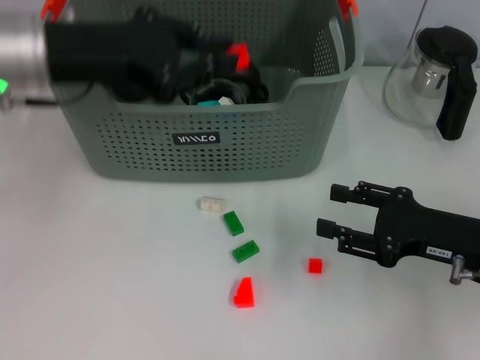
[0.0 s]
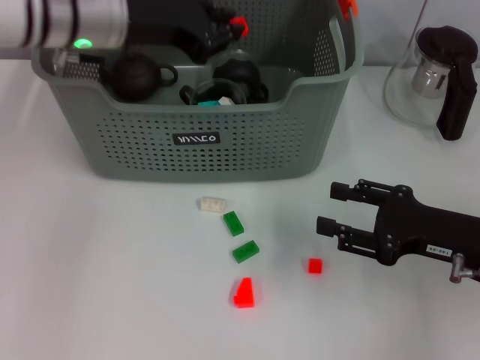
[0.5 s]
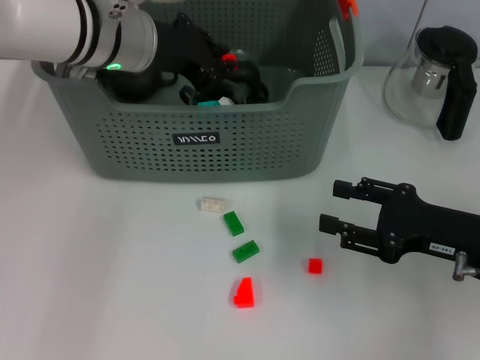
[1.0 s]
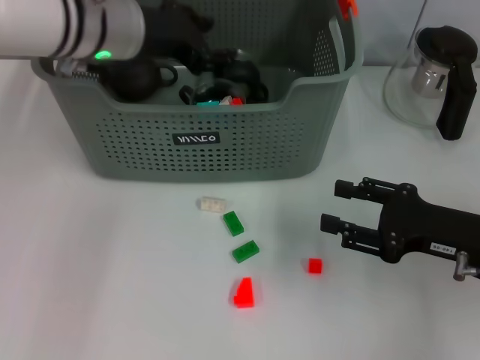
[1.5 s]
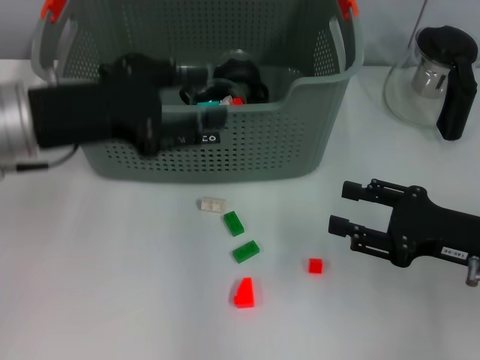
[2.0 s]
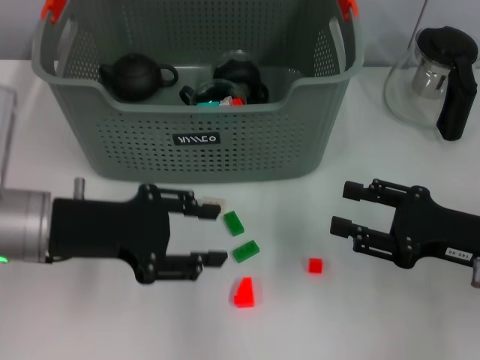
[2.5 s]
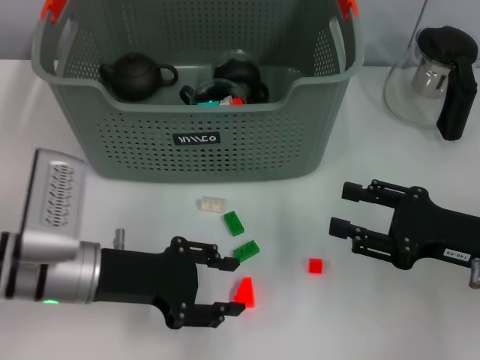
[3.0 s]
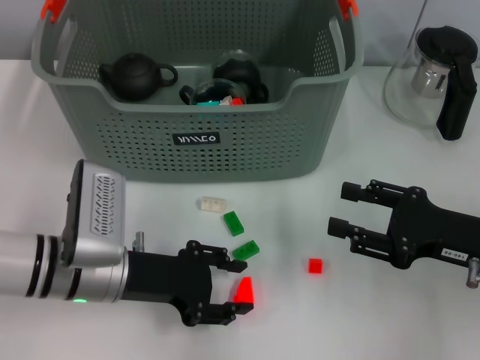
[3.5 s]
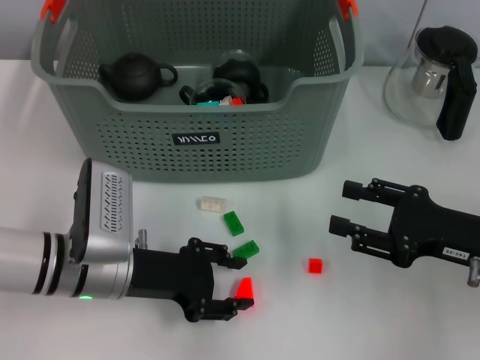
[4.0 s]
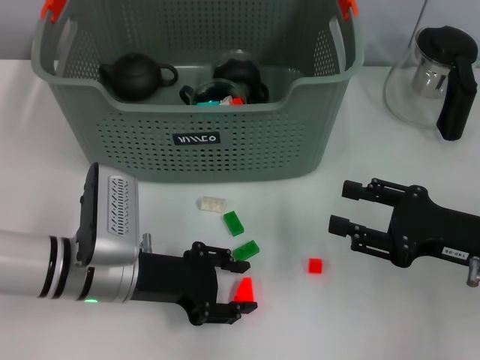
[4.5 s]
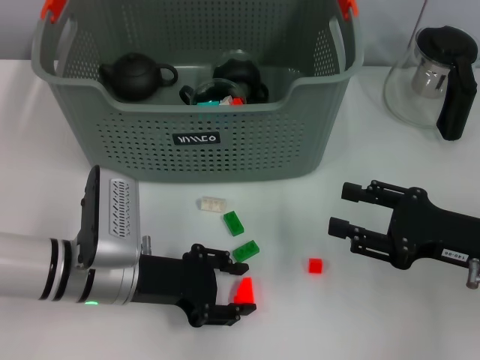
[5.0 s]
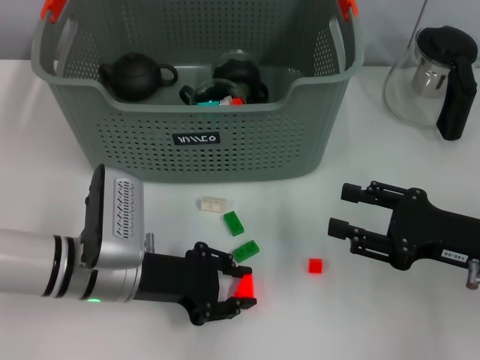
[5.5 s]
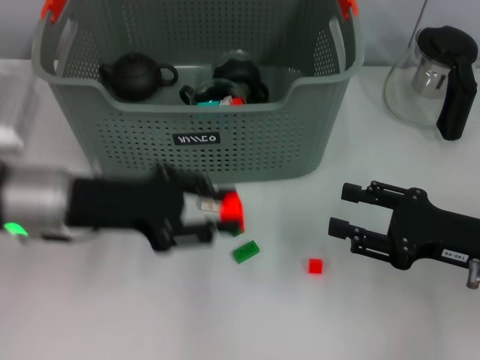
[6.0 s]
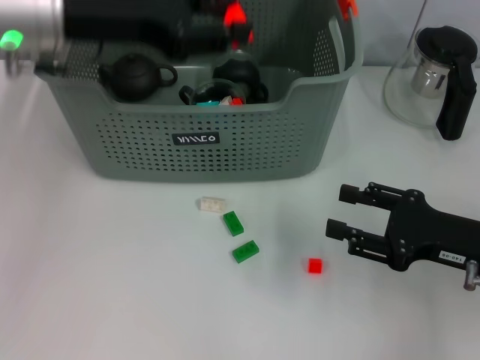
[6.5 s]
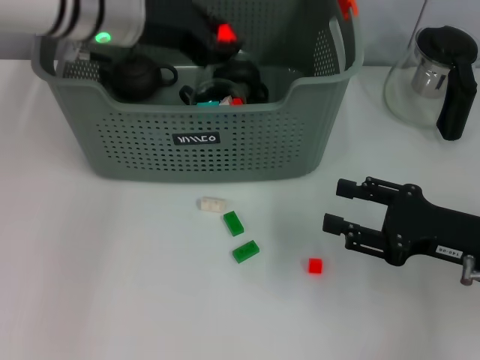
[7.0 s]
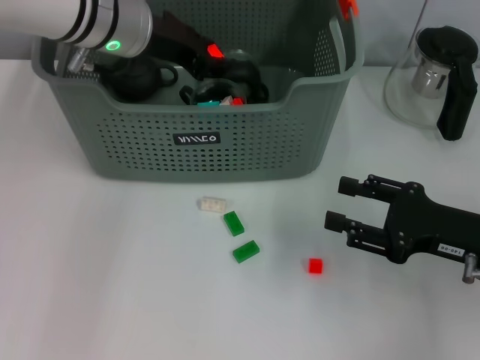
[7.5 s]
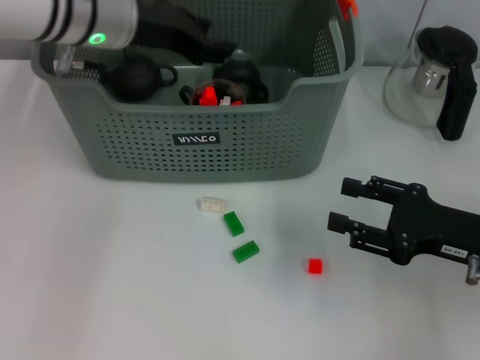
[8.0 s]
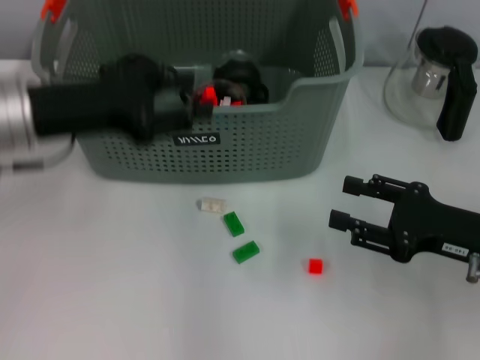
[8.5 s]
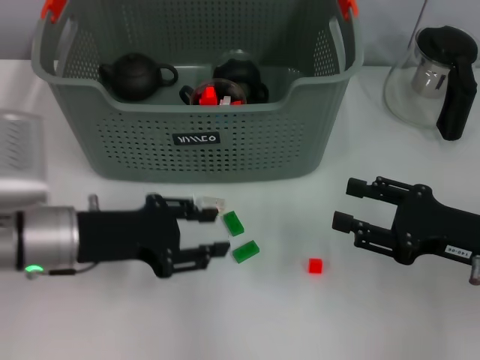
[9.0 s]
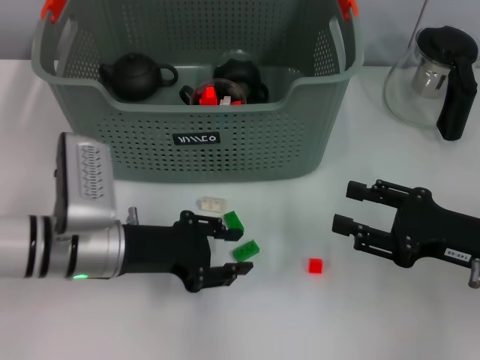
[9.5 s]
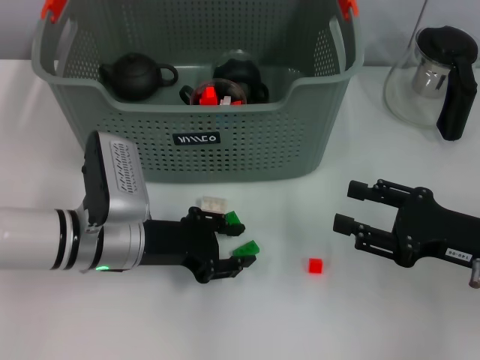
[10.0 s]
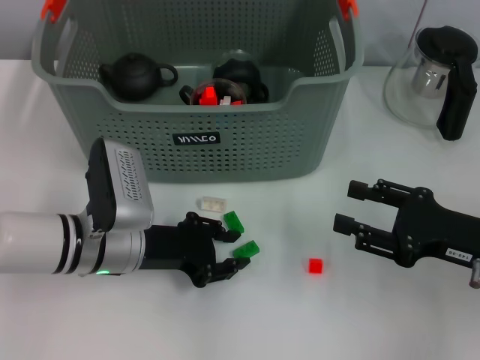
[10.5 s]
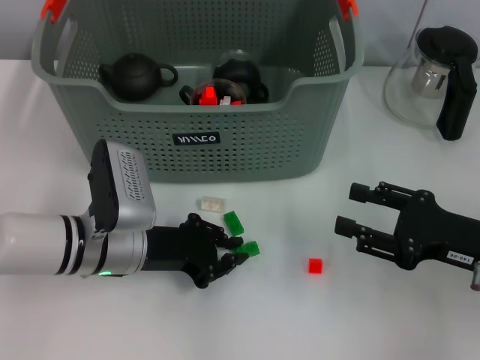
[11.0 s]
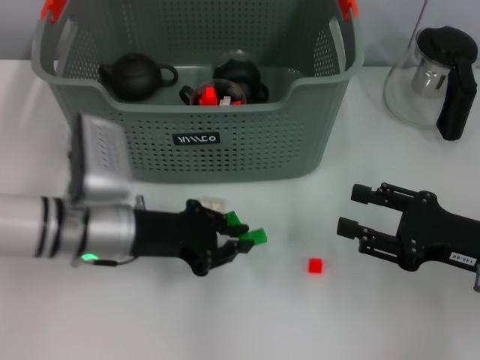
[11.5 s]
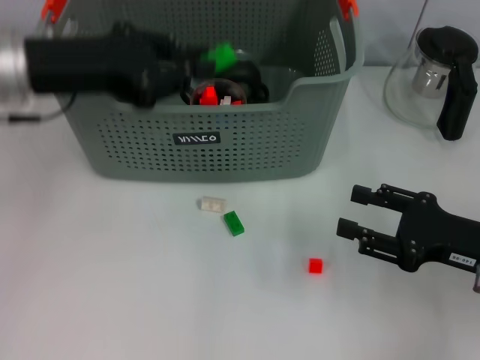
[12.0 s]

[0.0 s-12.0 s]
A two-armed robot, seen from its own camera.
Task of the whole recording: pick up the teacup on the table and place it into the storage bin, pick up the block on the table and place it into the storage bin.
Step, 2.0 to 5.0 s: Grasp the orange block with left gripper.
Step, 5.5 to 7.5 s: Place the orange block in the storage box with left gripper.
Step, 8.5 to 11.0 s: Grasp the green block with left gripper.
0.0 to 2.0 s: The left gripper reaches about 5 cm forward, then returns, and opens.
2.0 to 4.0 s: The left gripper moves downward, roughly 15 cm.
4.0 to 6.0 s: The left gripper heads upward, covering approximately 10 cm.
6.0 to 8.0 s: The left gripper moves forward, upward and to the right, about 15 cm.
8.0 to 10.0 s: The left gripper travels downward and backward by approximately 20 cm.
10.0 to 12.0 s: The left gripper travels upward by about 20 cm.

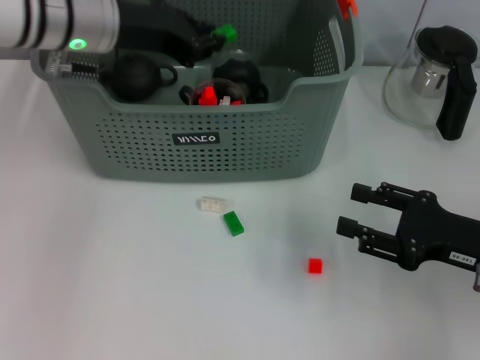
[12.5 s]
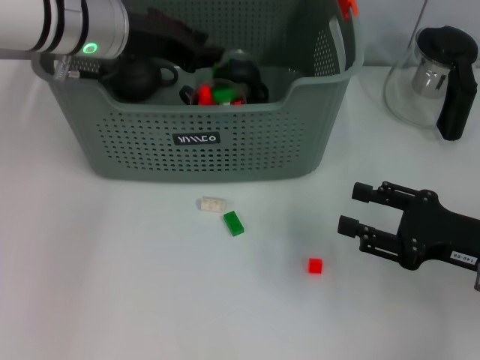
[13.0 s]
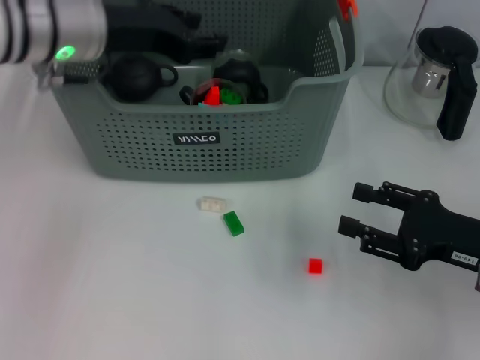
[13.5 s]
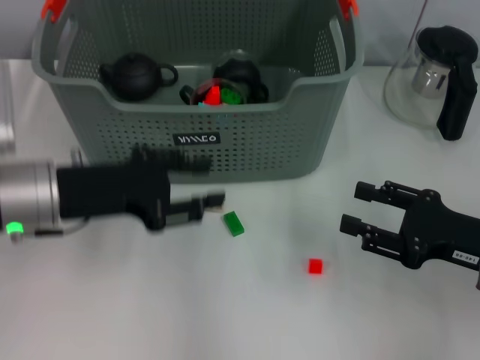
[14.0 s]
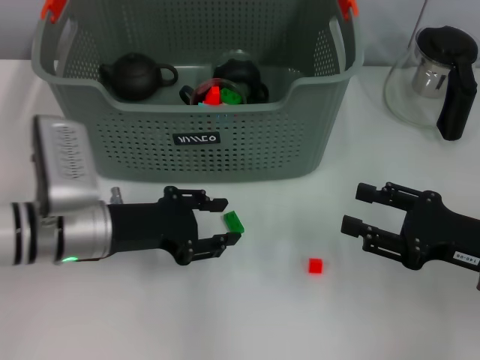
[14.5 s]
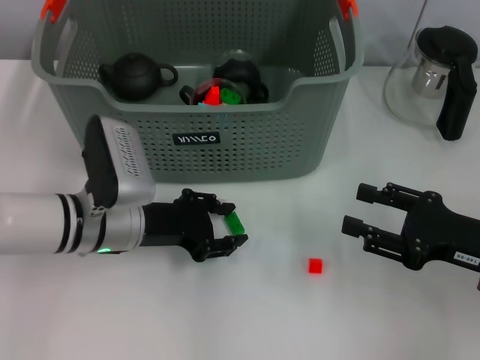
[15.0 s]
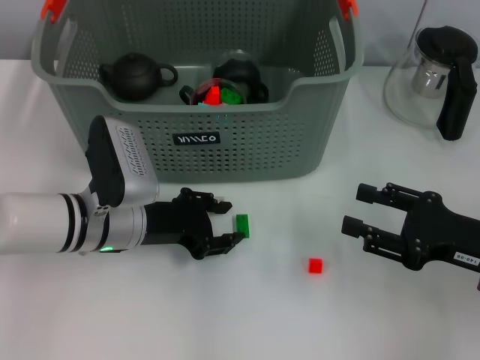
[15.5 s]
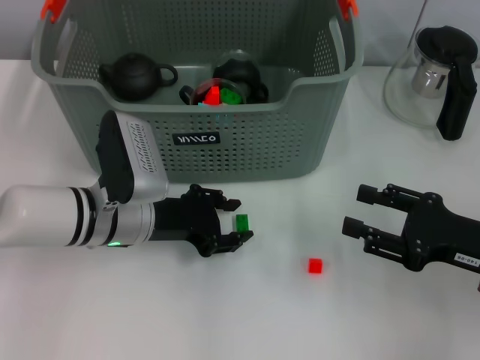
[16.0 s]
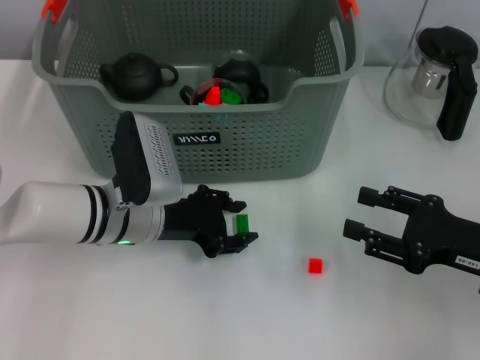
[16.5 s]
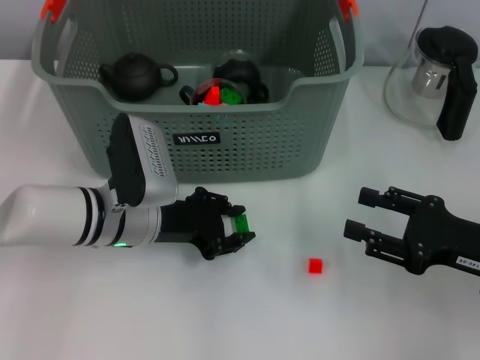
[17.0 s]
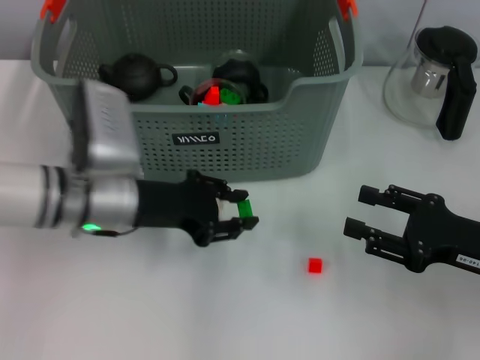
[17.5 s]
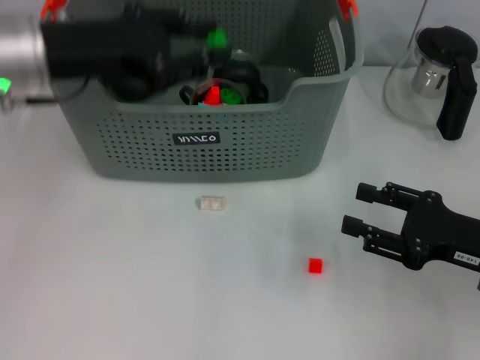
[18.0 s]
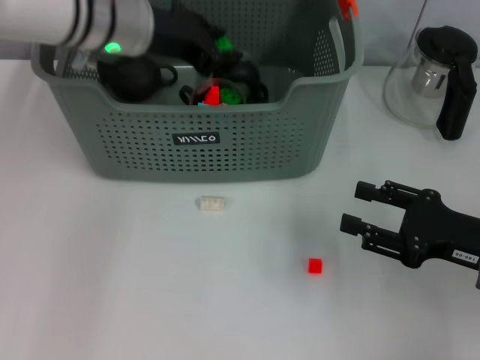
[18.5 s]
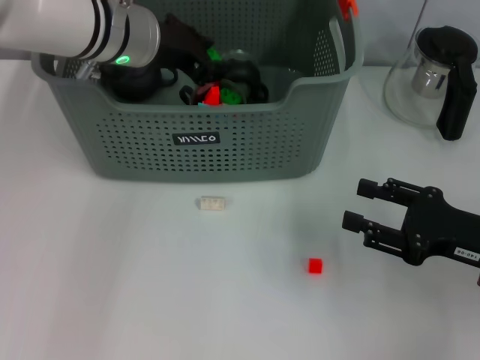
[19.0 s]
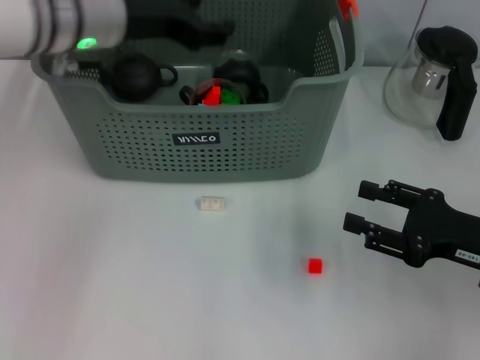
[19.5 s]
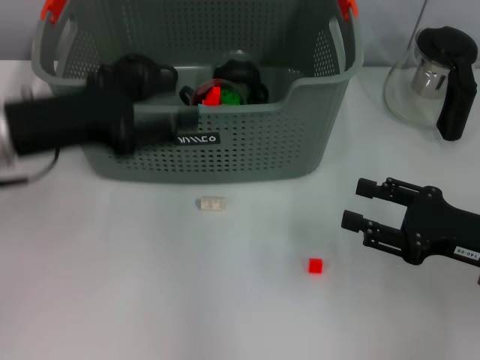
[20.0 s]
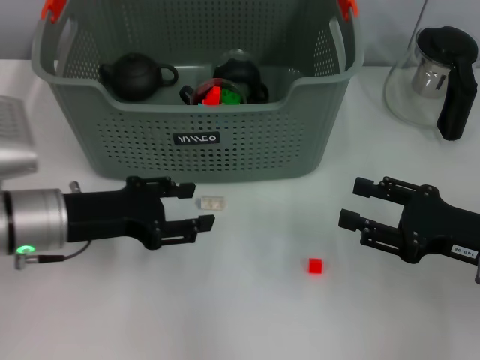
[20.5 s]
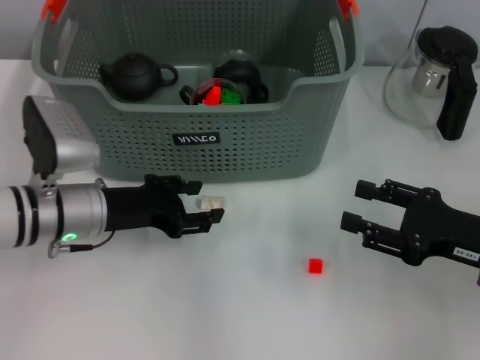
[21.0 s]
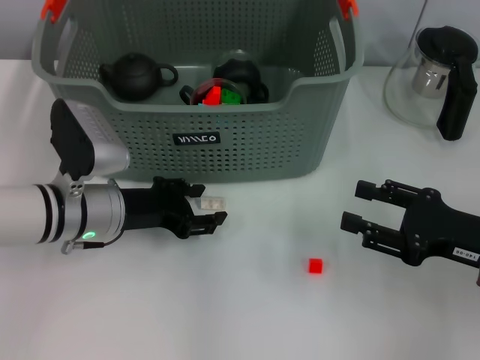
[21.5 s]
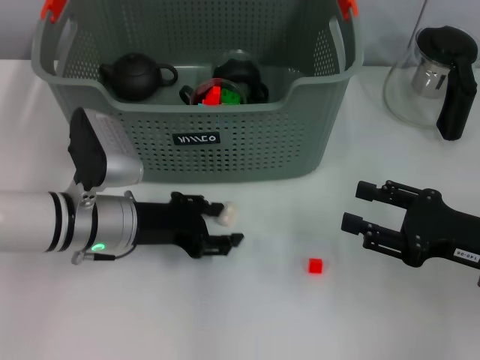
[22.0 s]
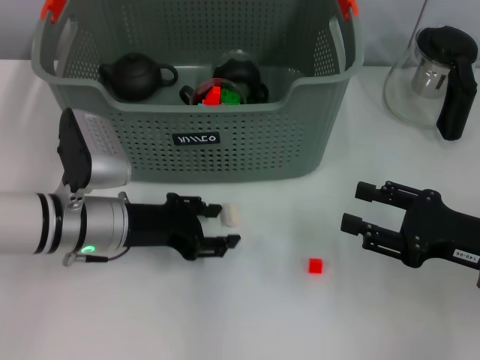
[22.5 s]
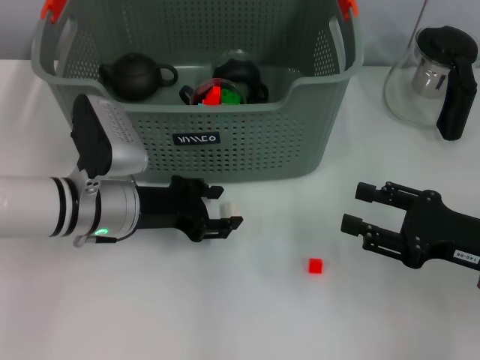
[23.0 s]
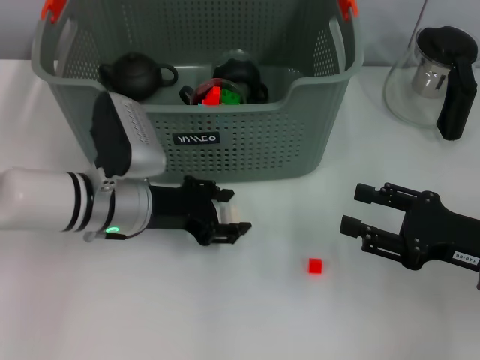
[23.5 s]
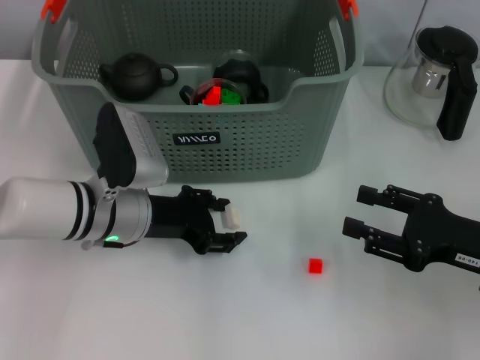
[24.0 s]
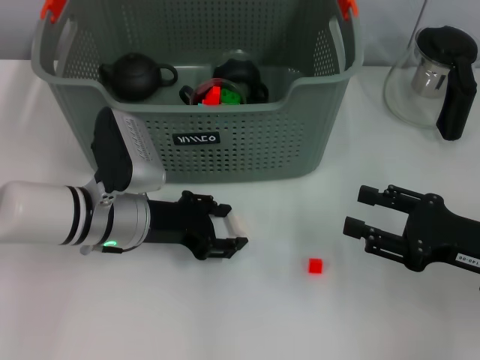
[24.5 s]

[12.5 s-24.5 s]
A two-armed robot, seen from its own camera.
Task of the whole recording: pick up the teacup on the table and place it into the storage bin, pick up the block on the table and place it into the storage bin.
Step, 13.5 to 17.0 s: Grasp the green block with left gripper.
Step, 17.5 to 19.0 s: Place the green block in the storage box with left gripper.
12.5 to 14.5 s: The left gripper moves downward and backward, approximately 20 cm.
14.5 to 16.5 s: The left gripper ends up about 5 cm from where it was.
16.5 to 18.5 s: The left gripper travels upward and forward by about 20 cm.
18.5 to 20.5 s: The left gripper goes approximately 20 cm backward, downward and to the left.
20.5 to 22.5 s: The left gripper changes place by approximately 5 cm.
22.5 to 24.5 s: The grippers make only small movements.

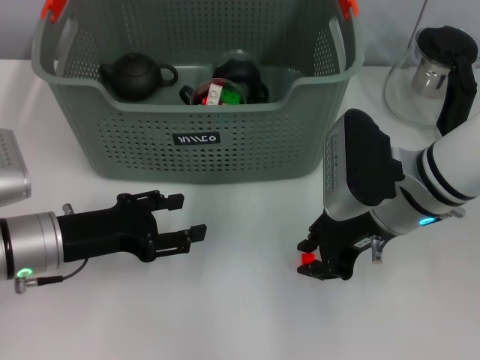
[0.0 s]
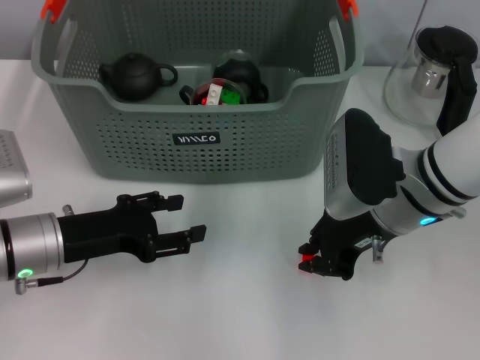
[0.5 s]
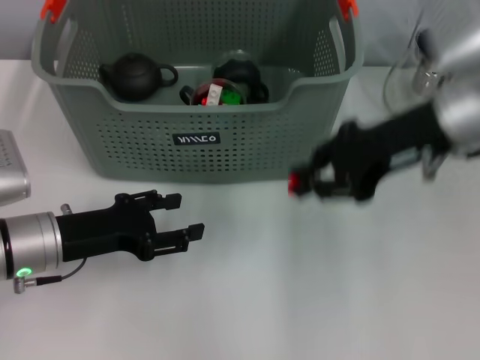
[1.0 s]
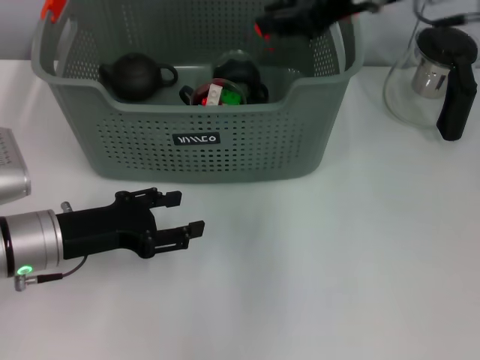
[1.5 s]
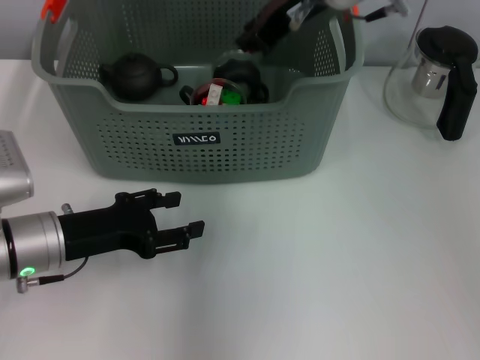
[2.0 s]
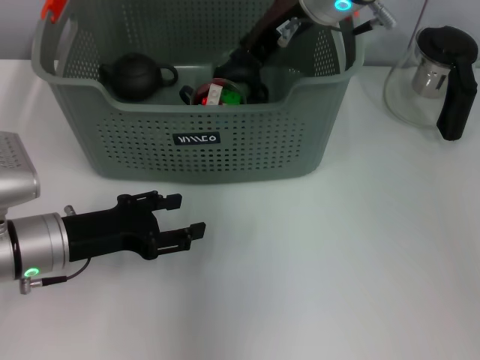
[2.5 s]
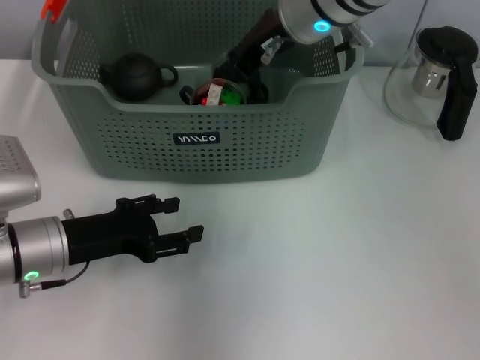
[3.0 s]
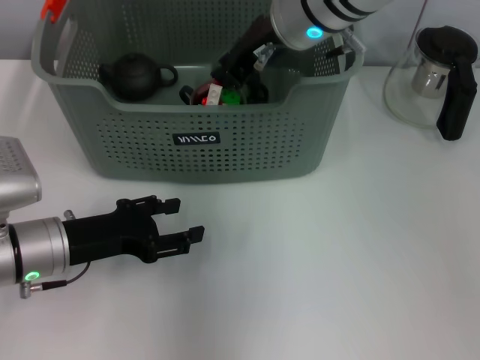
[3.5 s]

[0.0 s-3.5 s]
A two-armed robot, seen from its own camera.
Task of the whole recording: pick up the teacup on the table and place it into the storage bin, pick up the block on the table and place it into the storage bin.
0.0 to 2.0 s: The right gripper travels upward, forward and to the left by about 20 cm, and closes.
2.0 to 3.5 s: The grippers stay close to where they were, moving slightly.
